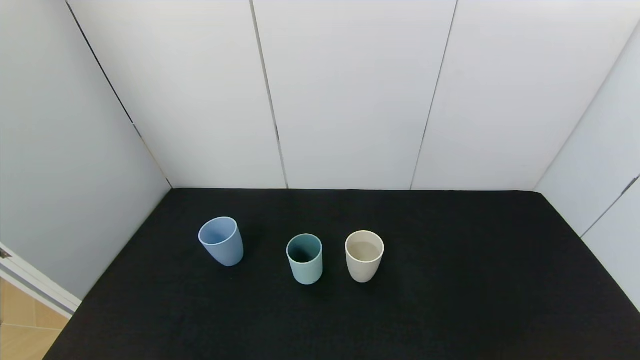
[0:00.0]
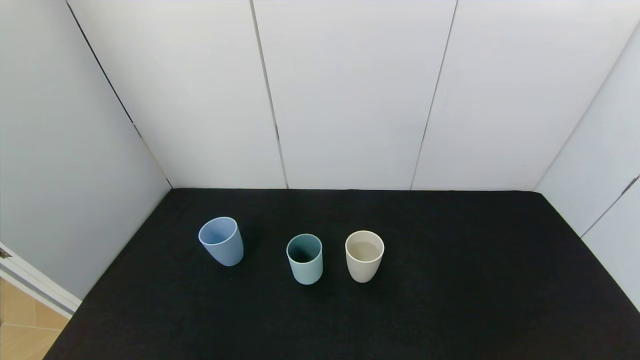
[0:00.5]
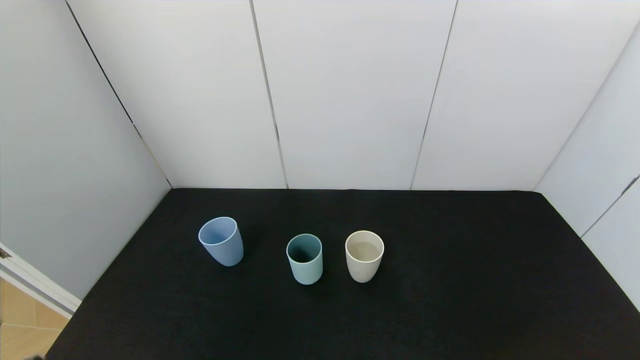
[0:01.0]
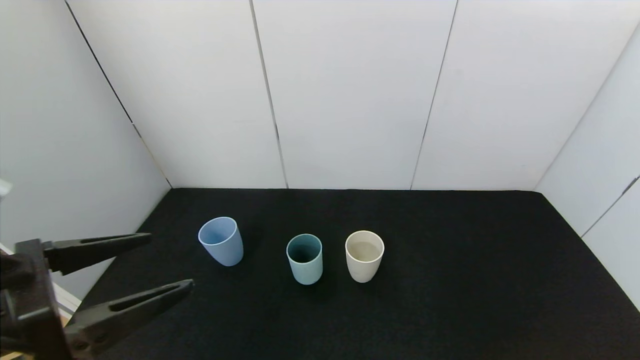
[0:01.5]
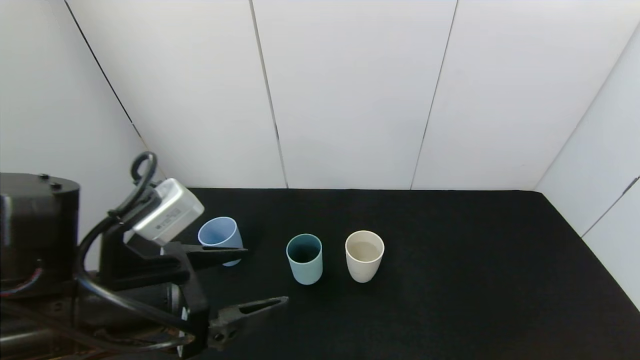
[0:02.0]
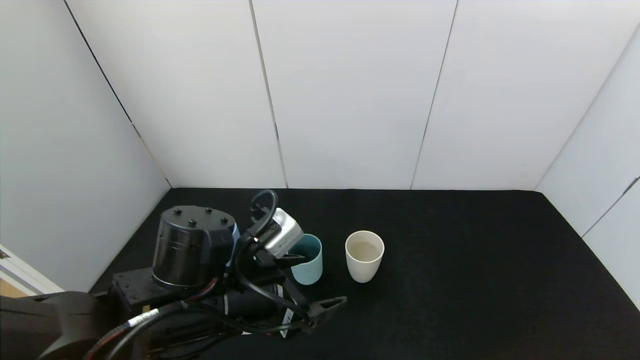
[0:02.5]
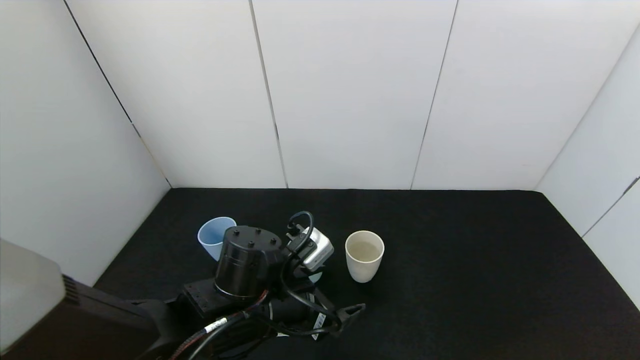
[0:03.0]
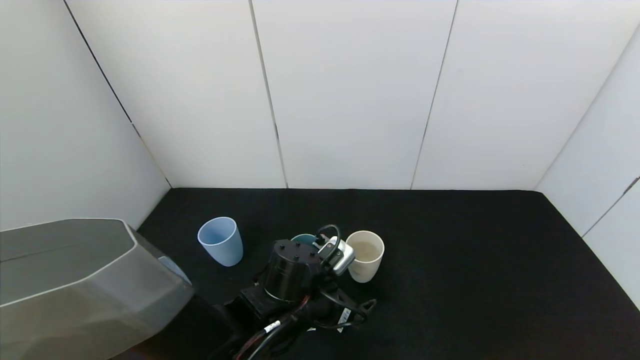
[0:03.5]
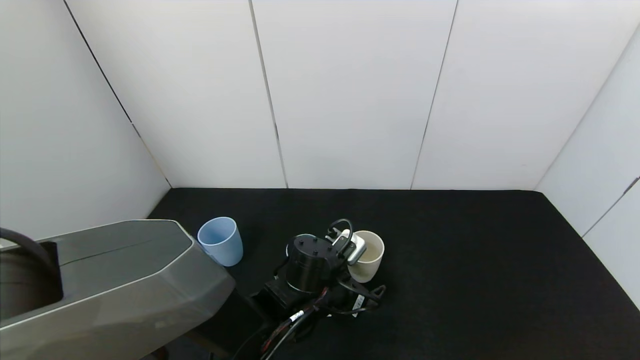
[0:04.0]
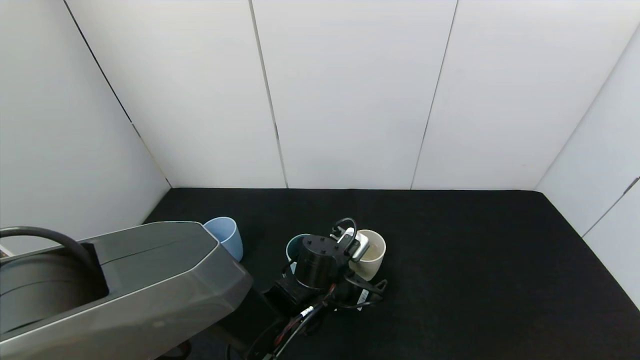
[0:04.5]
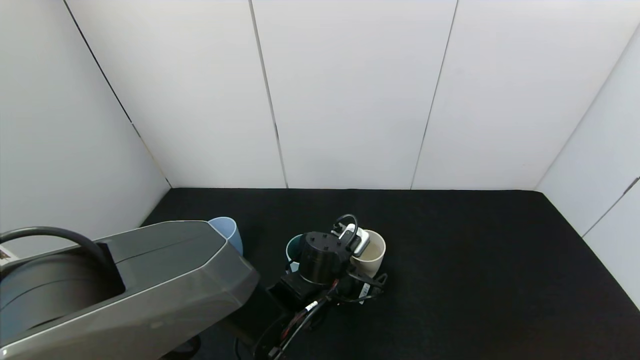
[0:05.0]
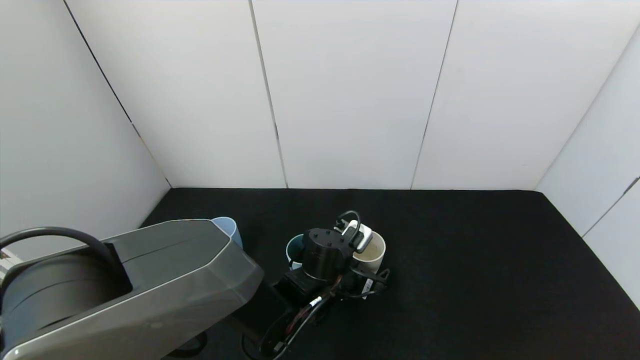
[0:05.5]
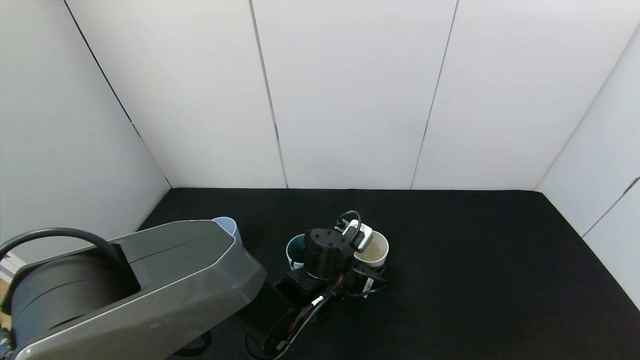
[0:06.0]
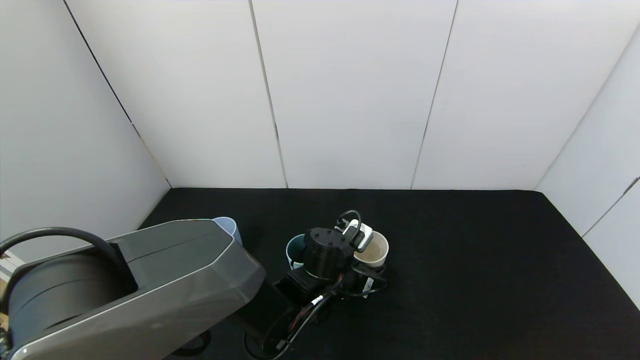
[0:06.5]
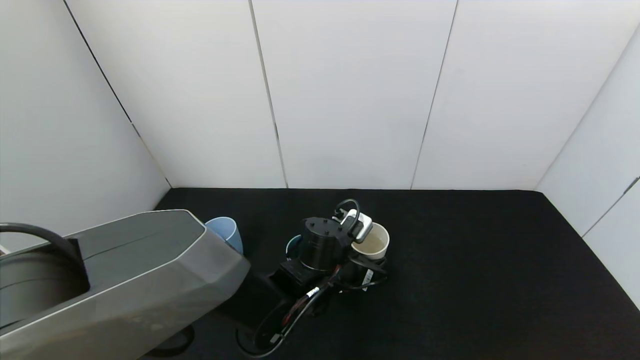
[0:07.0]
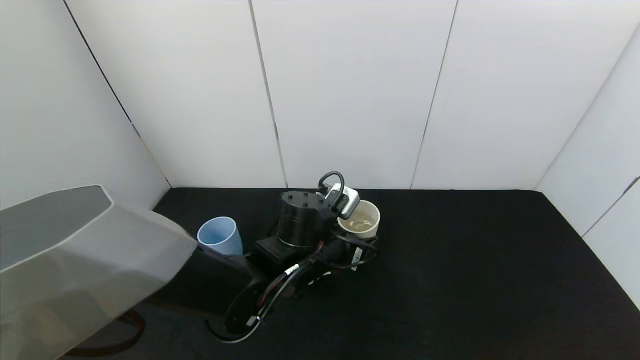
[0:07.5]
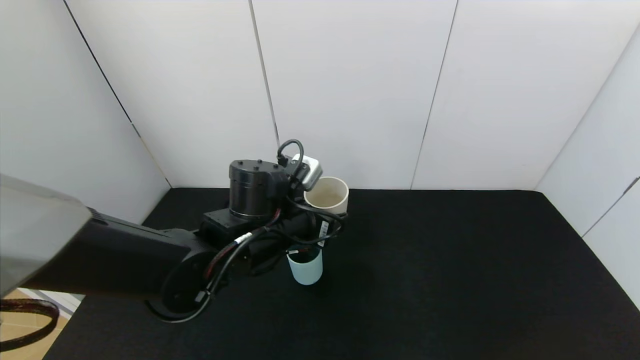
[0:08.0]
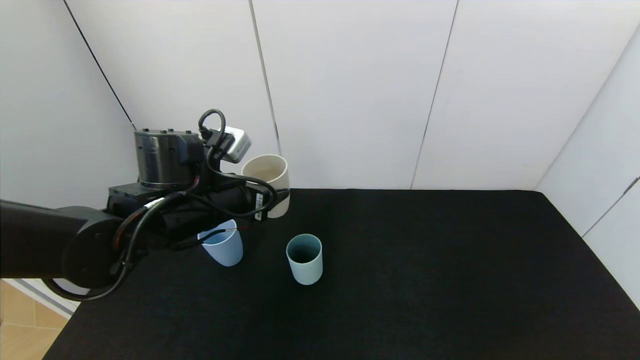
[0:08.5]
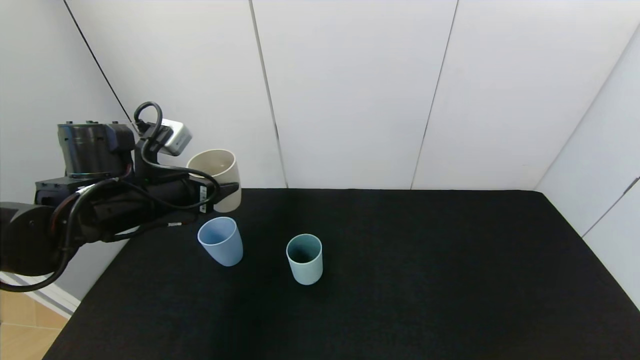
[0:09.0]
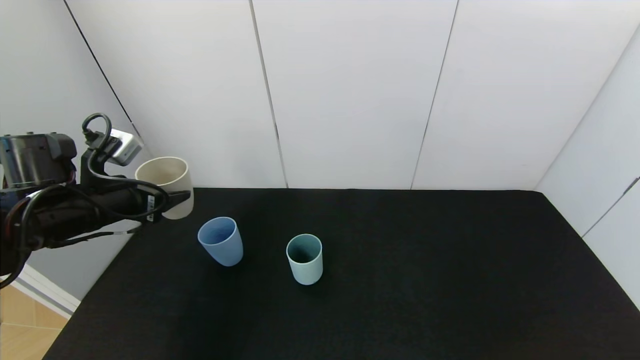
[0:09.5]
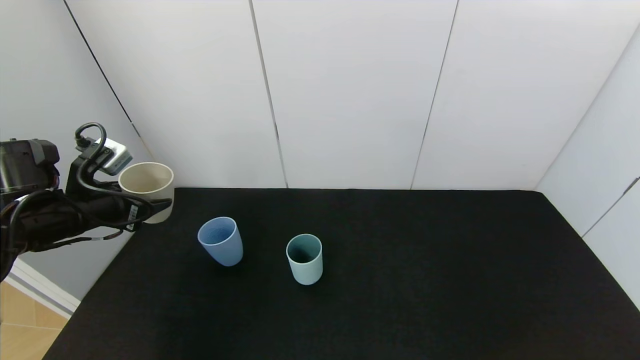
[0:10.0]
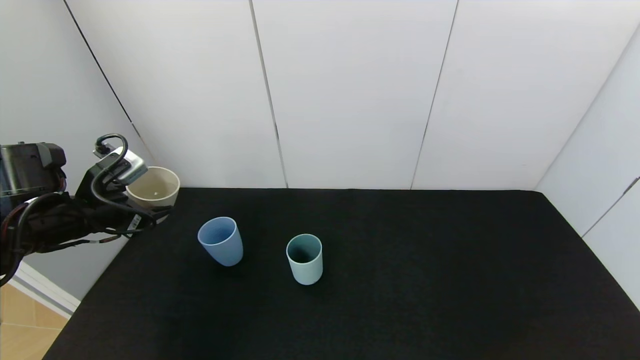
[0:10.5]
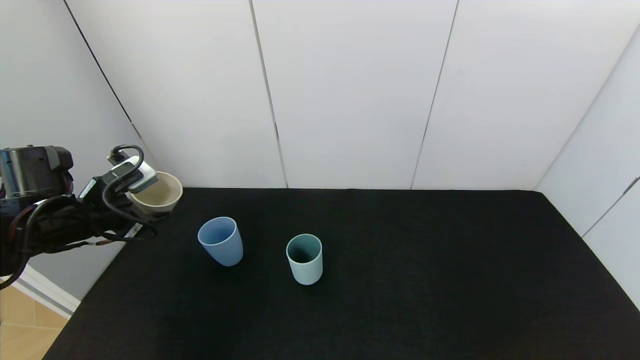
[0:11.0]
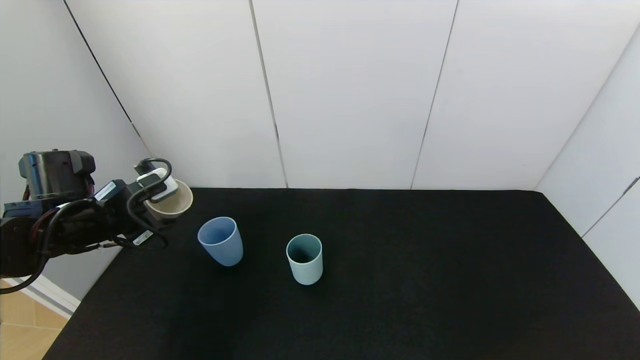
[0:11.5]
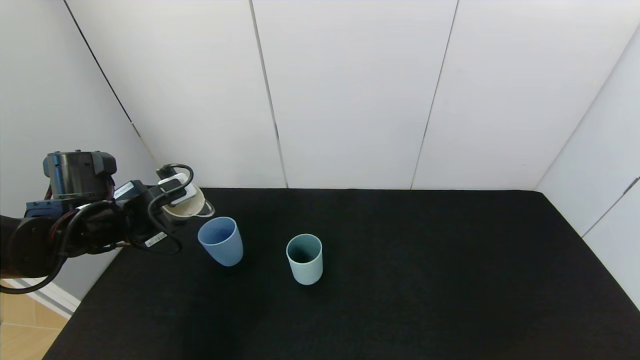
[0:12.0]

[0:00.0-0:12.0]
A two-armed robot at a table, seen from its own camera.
Task of the whole recording: use the gripper to pour the water into the other two cups on black table.
Step, 0:00.0 to 0:06.0: Grasp the white cup with the left gripper.
0:00.0 to 0:02.0: The left gripper heads forward, upward and to the right, covering some 25 cm.
0:02.0 to 0:04.0: The left gripper goes approximately 25 cm downward, to the right and forward.
0:04.0 to 0:06.0: The left gripper closes.
0:06.0 to 0:08.0: The left gripper travels upward and to the left by some 15 cm.
0:08.0 to 0:10.0: The left gripper is displaced to the left by roughly 25 cm.

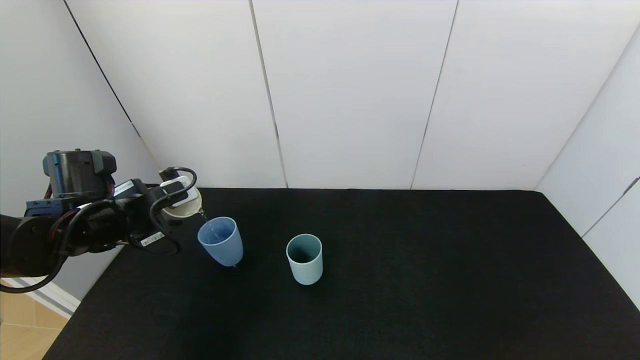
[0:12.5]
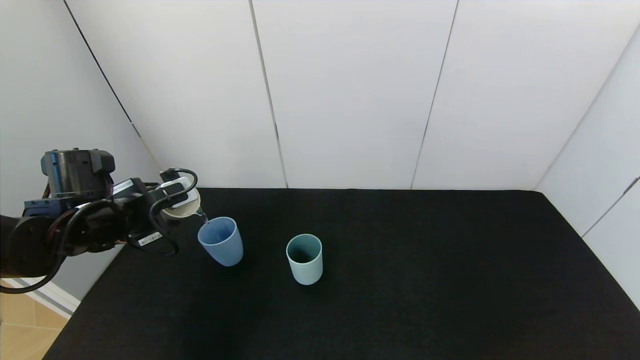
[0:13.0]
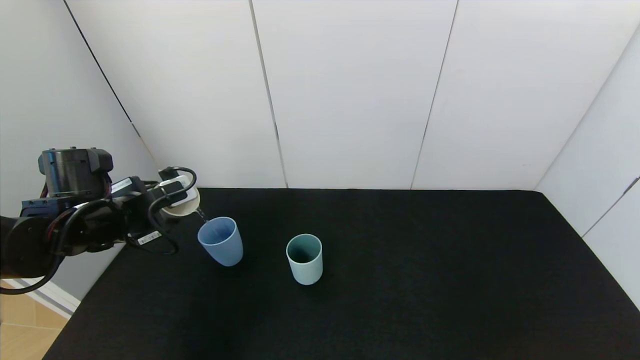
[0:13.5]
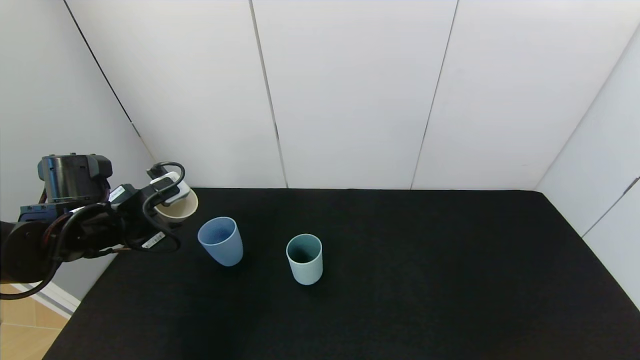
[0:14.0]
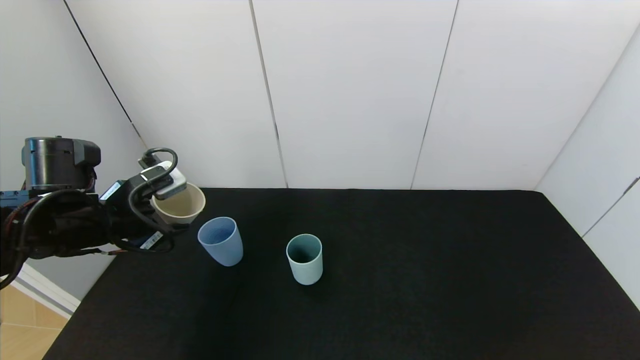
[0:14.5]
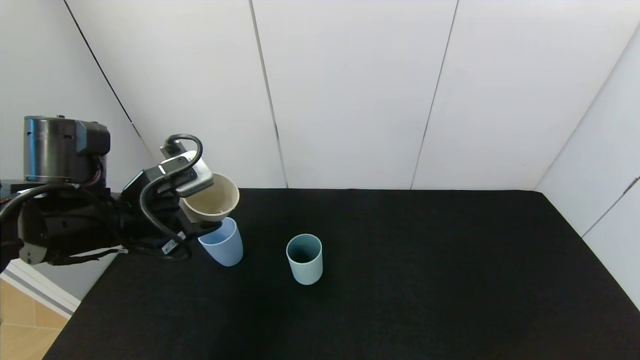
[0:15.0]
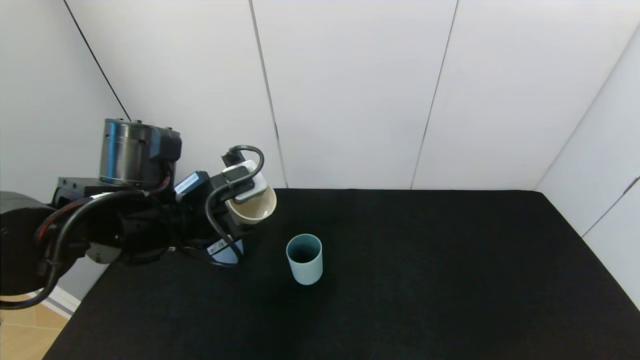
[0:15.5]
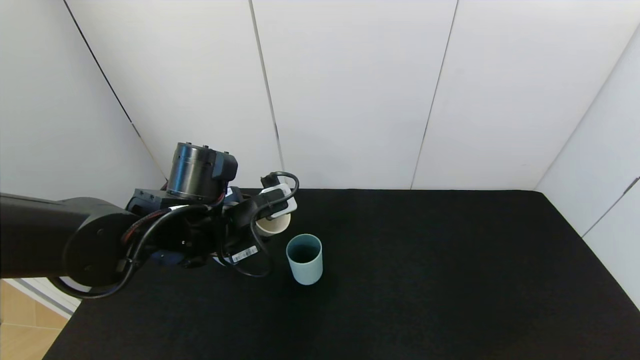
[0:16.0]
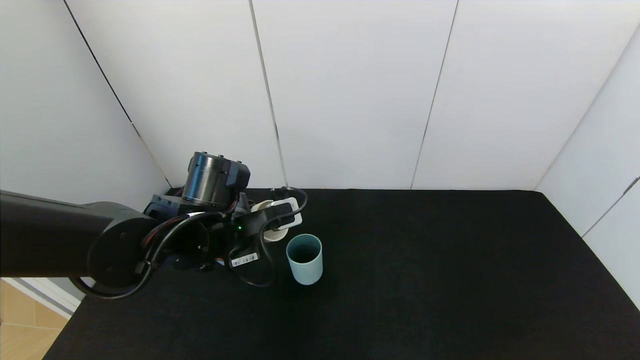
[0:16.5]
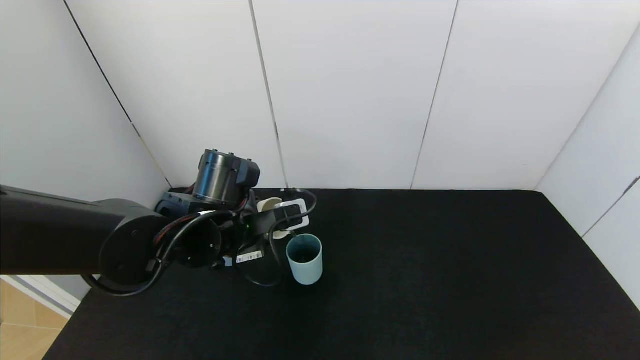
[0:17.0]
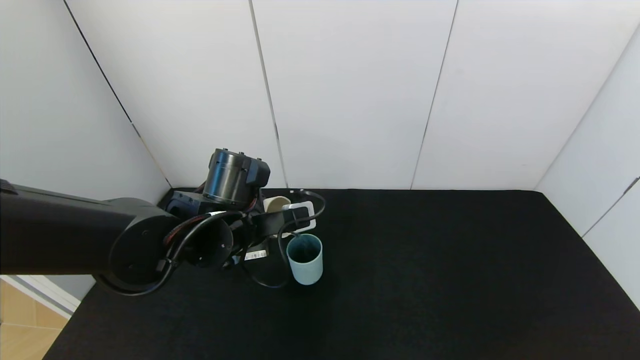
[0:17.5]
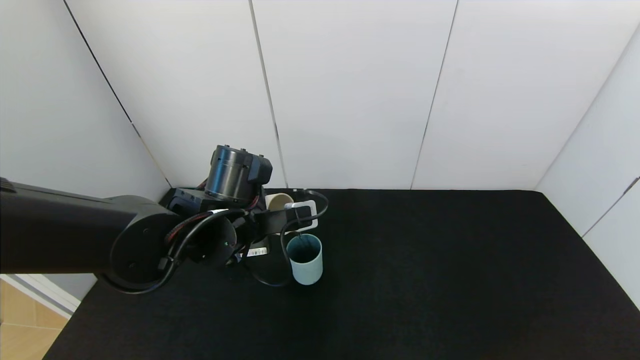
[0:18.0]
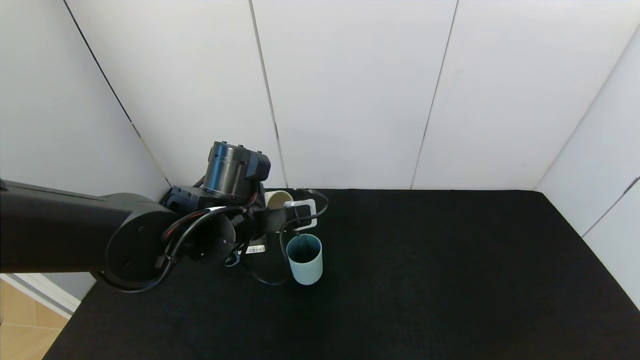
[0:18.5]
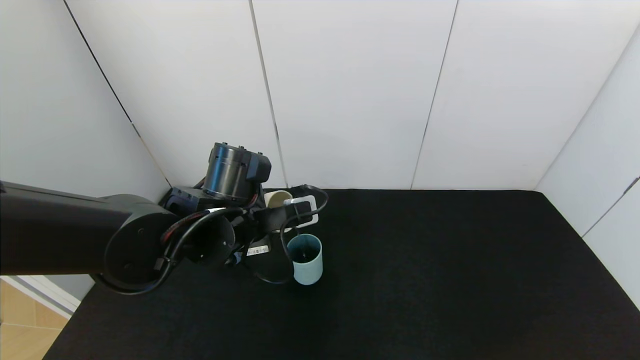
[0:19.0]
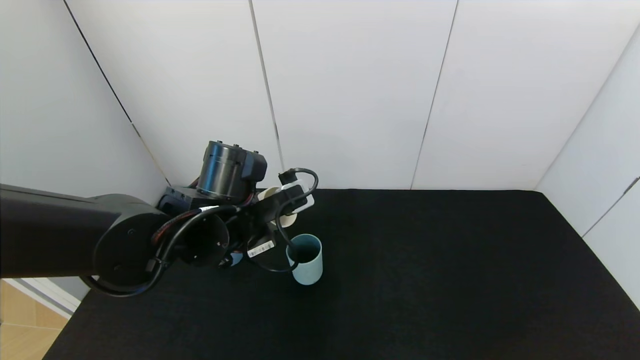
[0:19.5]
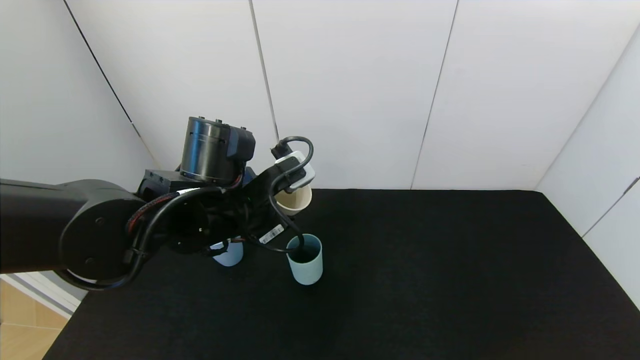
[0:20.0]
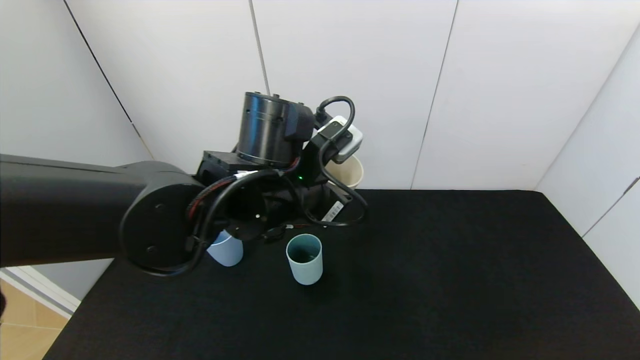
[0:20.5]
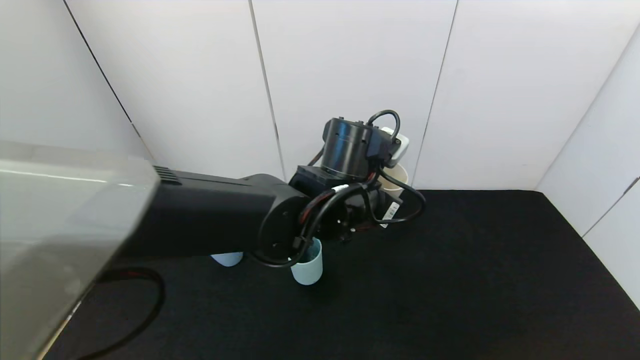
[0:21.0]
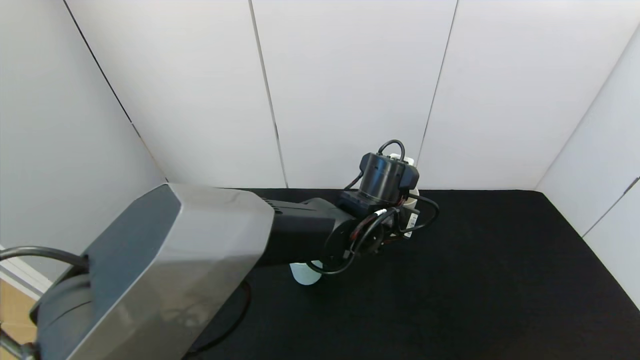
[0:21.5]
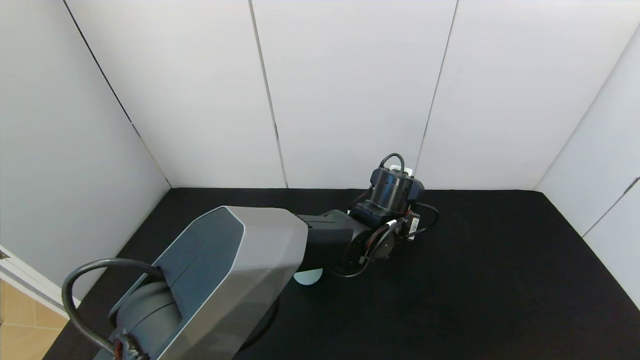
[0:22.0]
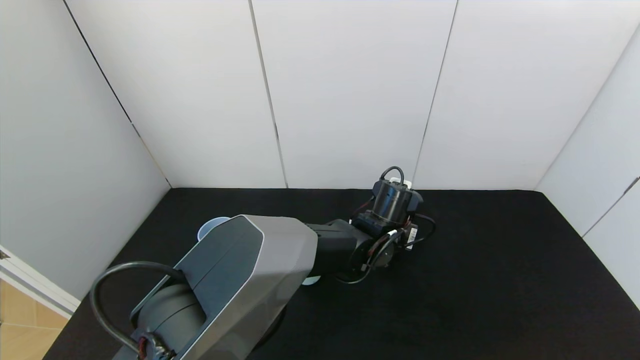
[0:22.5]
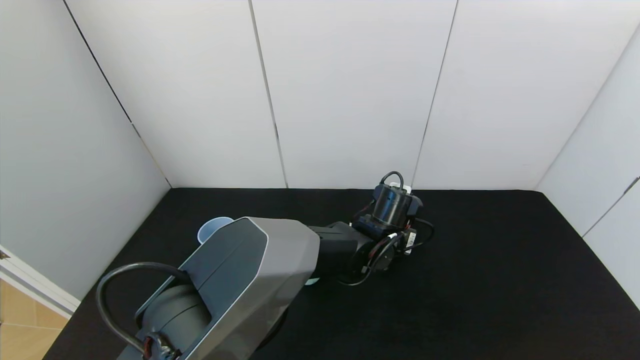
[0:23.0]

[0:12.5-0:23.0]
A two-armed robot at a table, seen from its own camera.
Task of the whole recording: use the gripper to pour the water into the other two cups on black table.
Step, 0:14.5 to 0:19.0: Pour water from white cup to green cup with the left gripper.
0:12.5 to 0:14.5: The left gripper changes place by some 5 cm.
0:14.5 to 0:16.5: The left gripper shifts approximately 15 cm to the right.
0:16.5 to 0:19.0: The grippers make only small movements.
0:19.0 to 0:21.0: The left gripper is displaced to the right by about 15 cm.
0:21.0 to 0:23.0: The left gripper moves downward, to the right and forward, roughly 15 cm.
